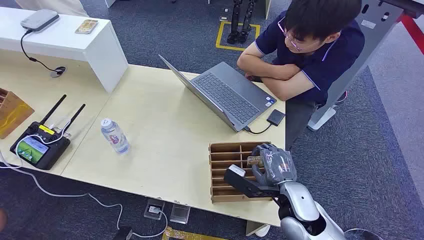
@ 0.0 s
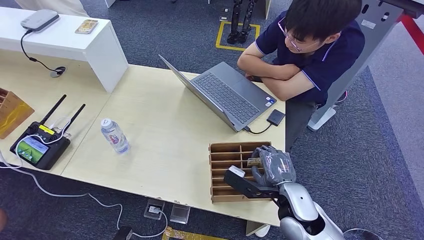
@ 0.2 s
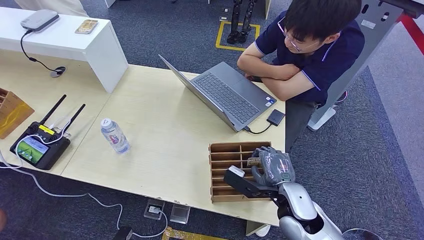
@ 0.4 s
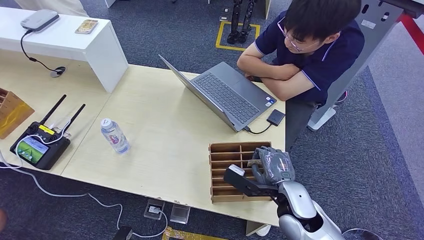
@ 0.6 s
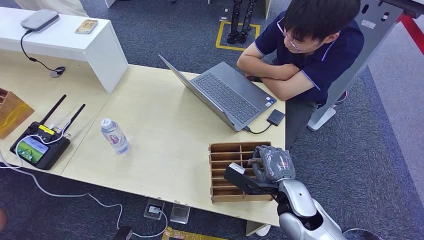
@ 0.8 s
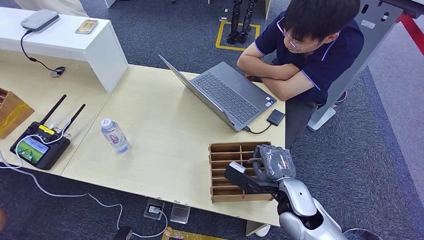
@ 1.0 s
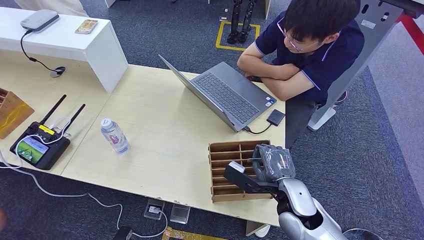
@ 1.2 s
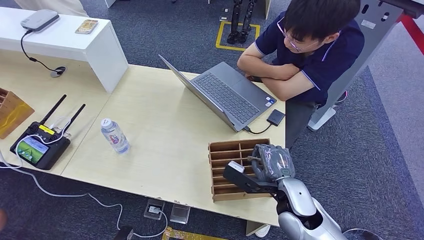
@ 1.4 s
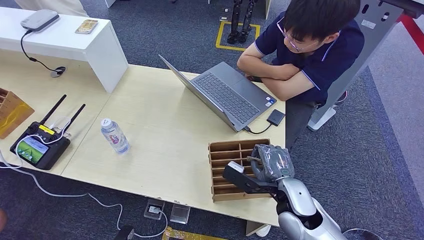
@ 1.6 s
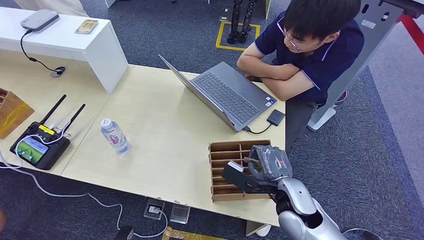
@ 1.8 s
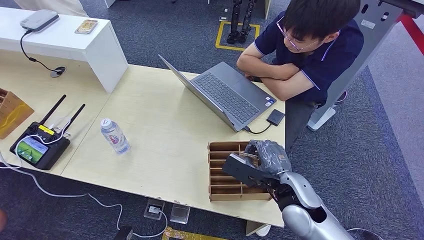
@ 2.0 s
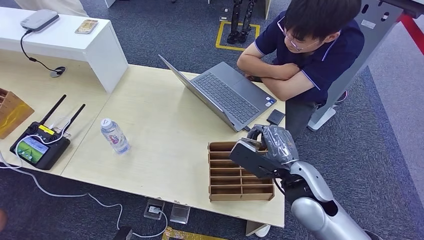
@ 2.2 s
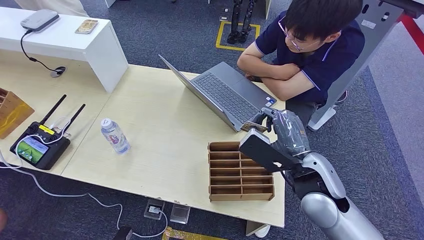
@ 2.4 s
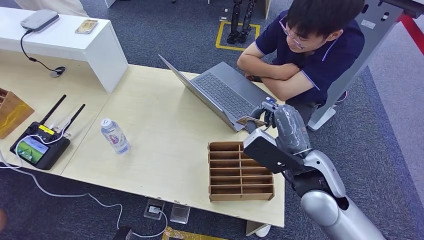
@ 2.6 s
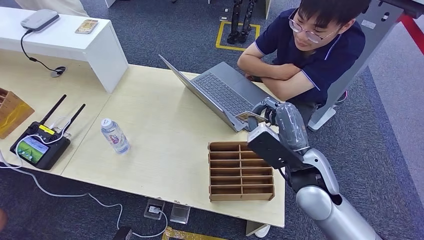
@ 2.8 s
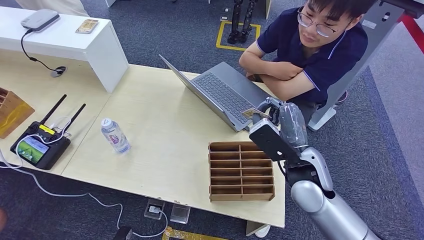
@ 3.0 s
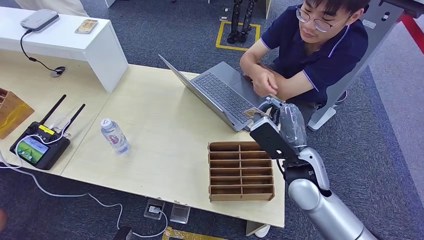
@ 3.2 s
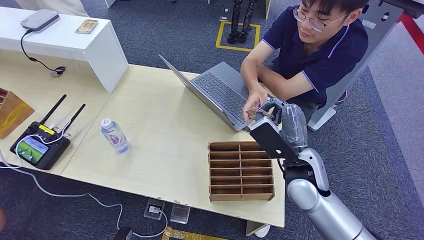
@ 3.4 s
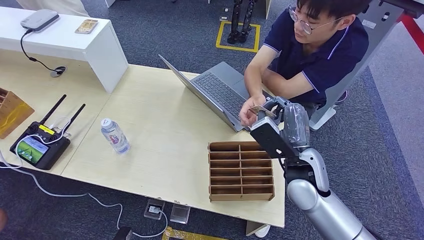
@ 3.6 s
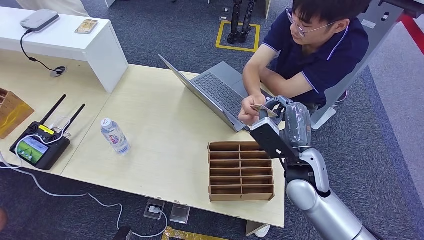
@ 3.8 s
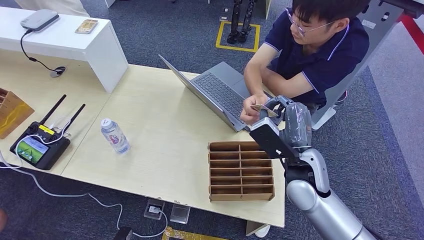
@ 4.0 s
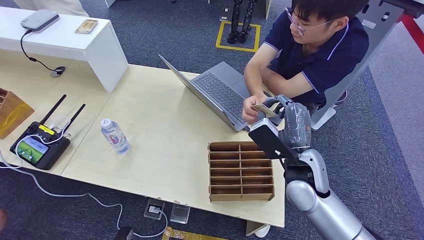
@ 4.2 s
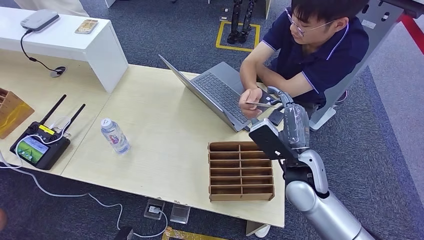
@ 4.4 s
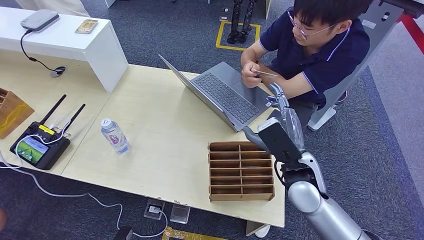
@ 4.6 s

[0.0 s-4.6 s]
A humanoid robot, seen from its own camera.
Task of the whole recording: Pick up the card and hand it over to the target person.
Step, 0.0 to 1.6 s: Pick up the key card from the card box.
Step, 2.4 to 4.6 s: Hand the key card to the target.
1.6 to 3.0 s: The right hand moves forward and upward, roughly 10 cm.
3.0 to 4.6 s: The hands move only a little.
